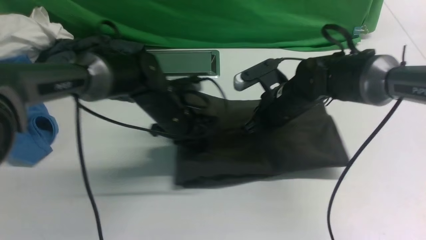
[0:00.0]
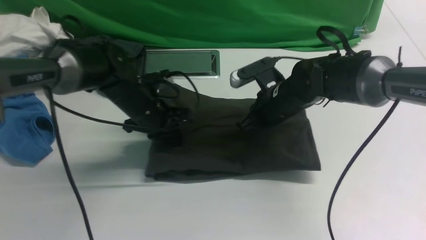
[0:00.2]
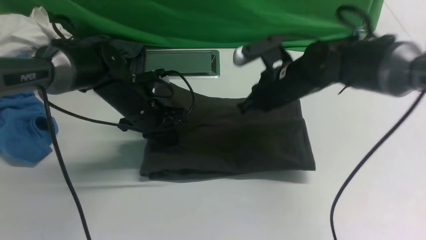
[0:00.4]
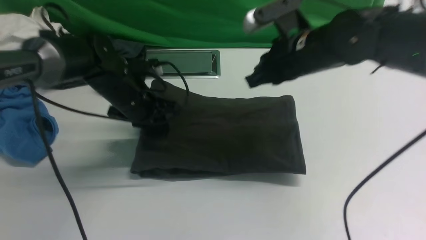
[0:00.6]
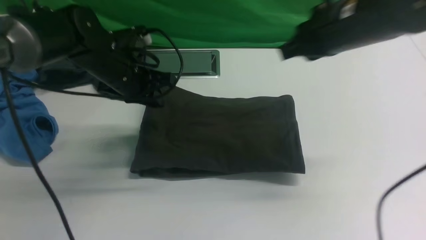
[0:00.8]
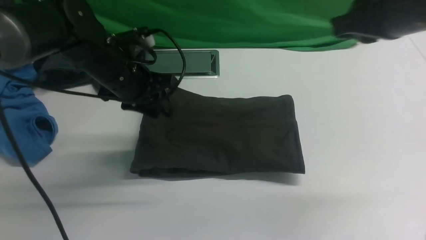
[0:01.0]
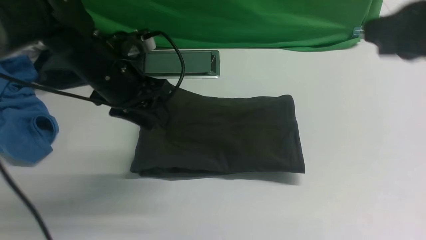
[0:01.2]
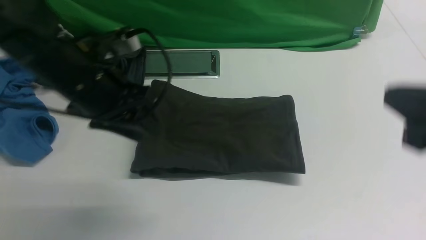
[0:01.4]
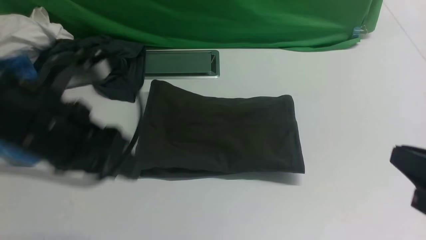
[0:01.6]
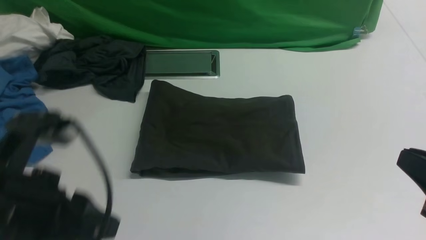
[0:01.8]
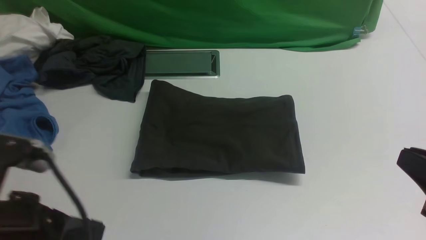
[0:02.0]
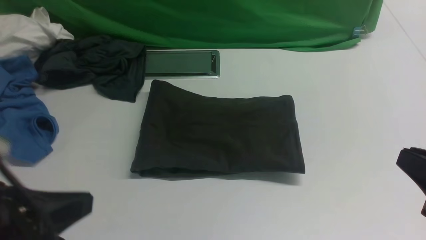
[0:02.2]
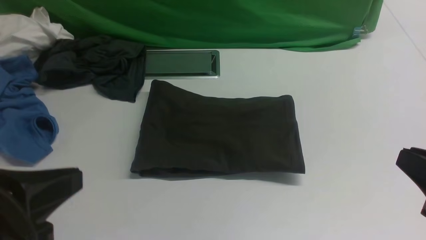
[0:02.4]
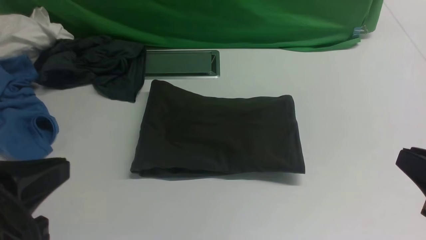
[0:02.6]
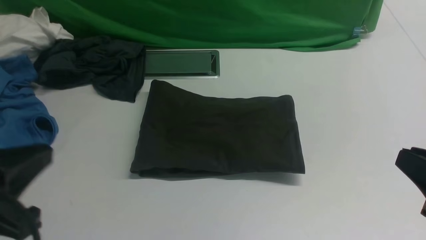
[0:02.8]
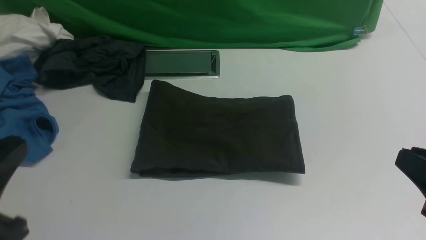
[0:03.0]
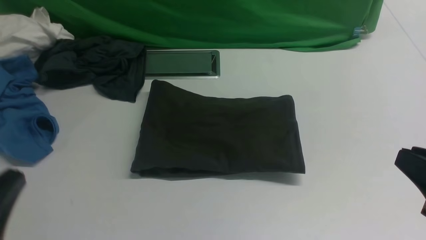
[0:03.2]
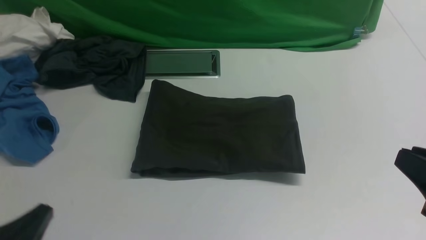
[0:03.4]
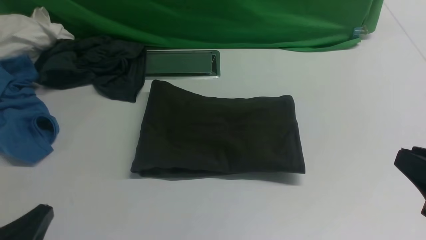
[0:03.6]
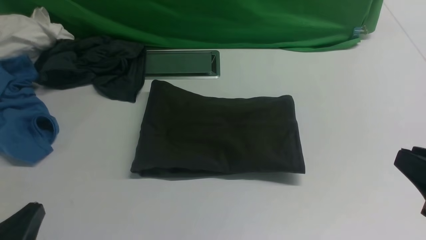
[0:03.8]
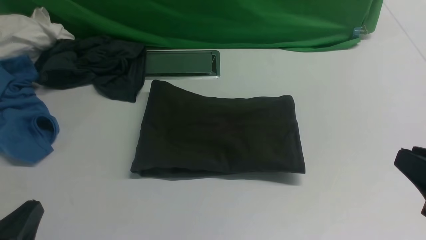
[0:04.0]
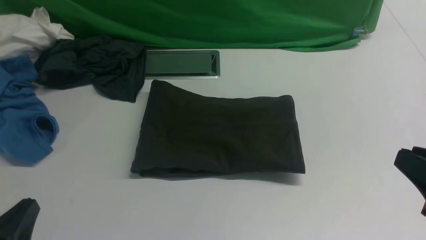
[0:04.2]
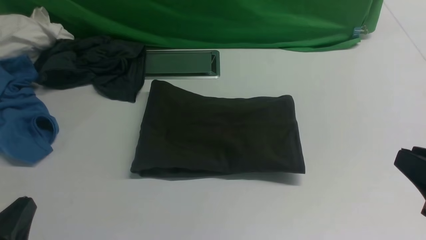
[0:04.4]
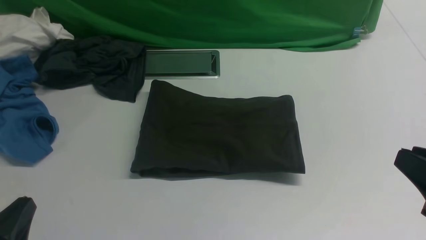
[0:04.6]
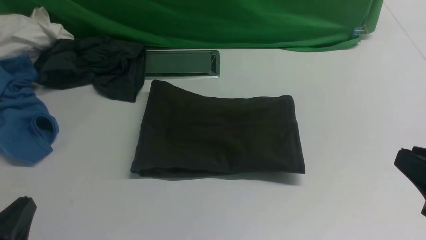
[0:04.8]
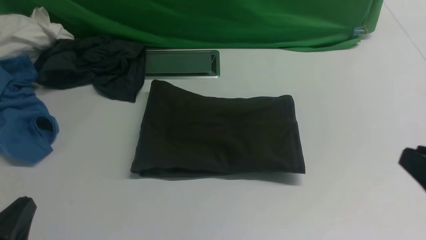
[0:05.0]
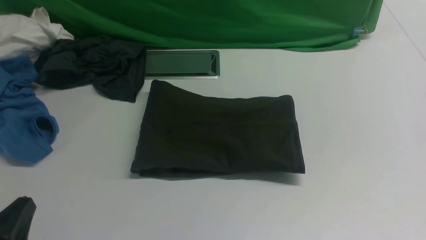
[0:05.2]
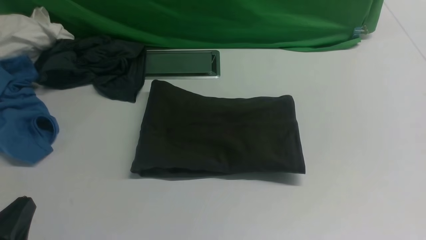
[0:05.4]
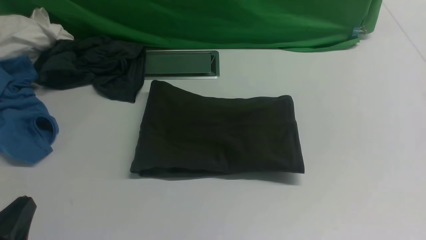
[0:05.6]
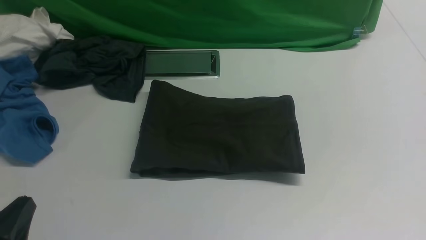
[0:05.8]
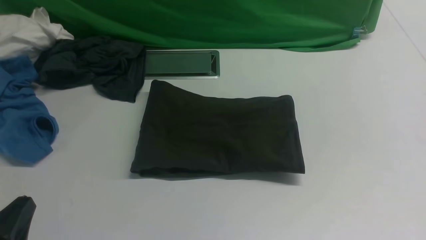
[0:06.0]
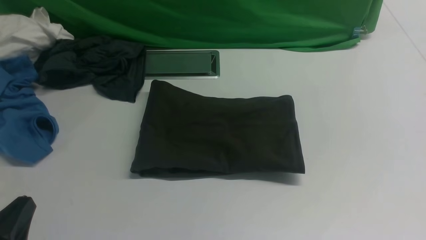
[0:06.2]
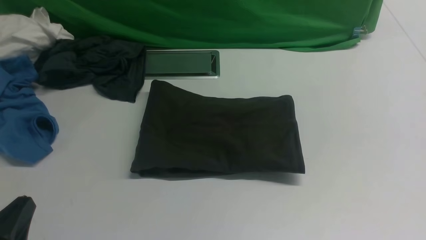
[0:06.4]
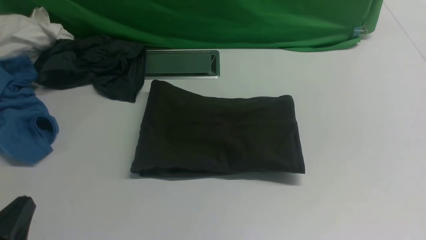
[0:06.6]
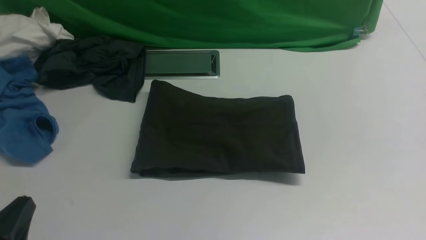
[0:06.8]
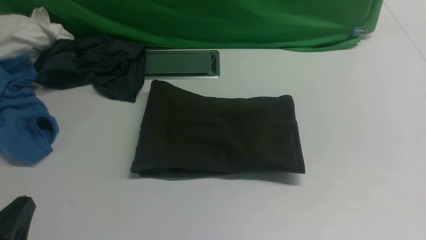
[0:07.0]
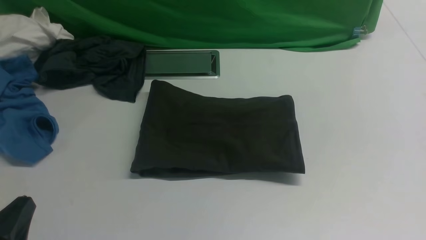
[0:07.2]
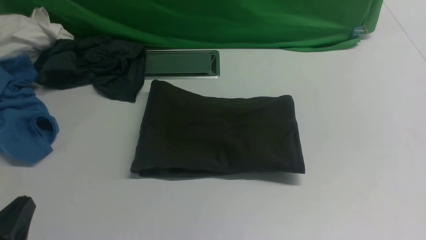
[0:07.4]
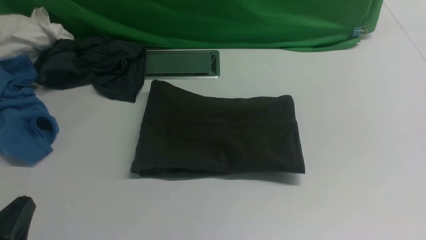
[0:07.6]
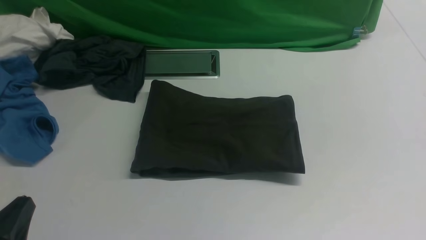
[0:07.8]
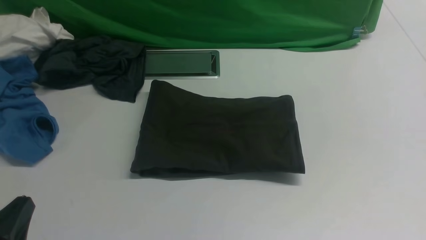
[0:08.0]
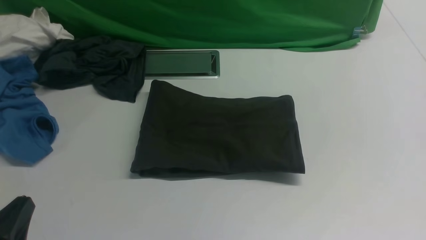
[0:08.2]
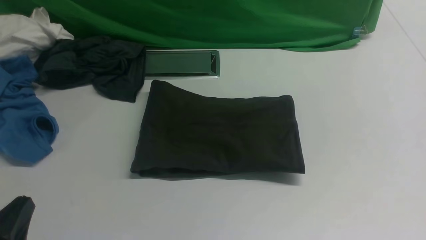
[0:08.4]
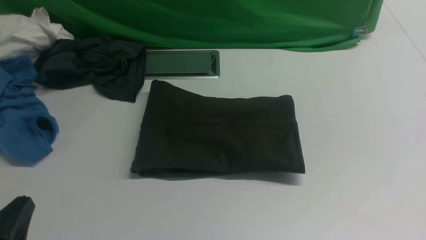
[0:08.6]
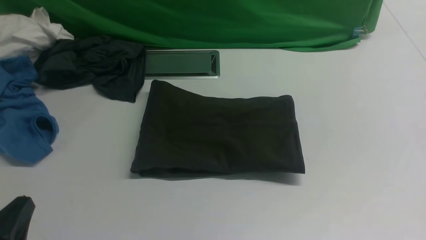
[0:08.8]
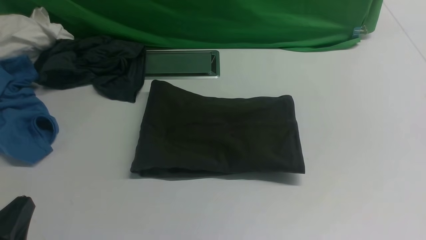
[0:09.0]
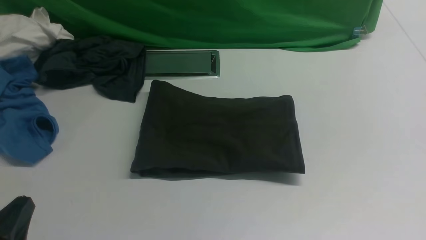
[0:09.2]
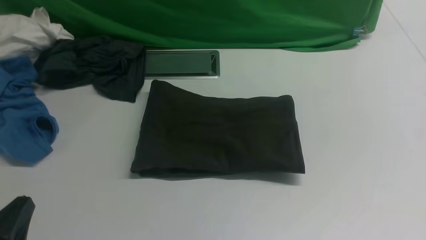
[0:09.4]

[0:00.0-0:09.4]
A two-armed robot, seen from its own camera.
0:00.0 to 0:01.6: The left gripper goes some 25 cm backward, upward and to the left, and opens, while the right gripper moves backward, to the right and upward, some 30 cm.
0:01.6 to 0:03.2: The left gripper shifts some 15 cm backward, downward and to the left, and closes up.
0:03.2 to 0:04.8: The left gripper moves downward, some 5 cm.
0:04.8 to 0:06.2: The right gripper travels downward by roughly 5 cm.
0:06.2 to 0:09.4: The two grippers keep their place.
